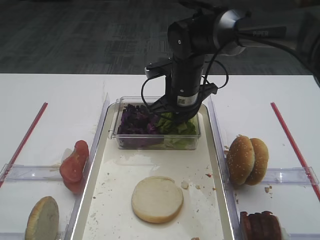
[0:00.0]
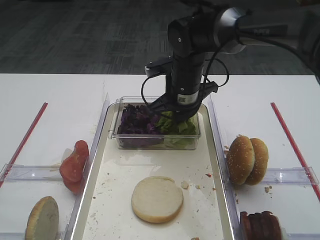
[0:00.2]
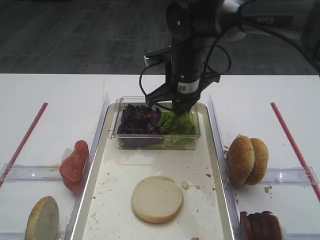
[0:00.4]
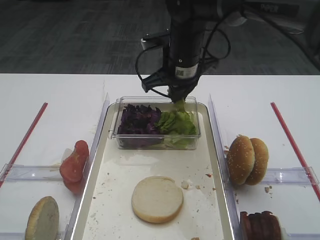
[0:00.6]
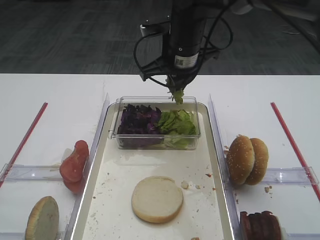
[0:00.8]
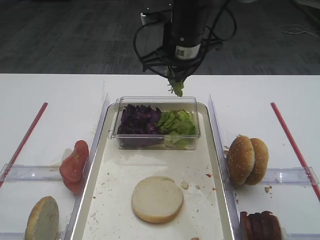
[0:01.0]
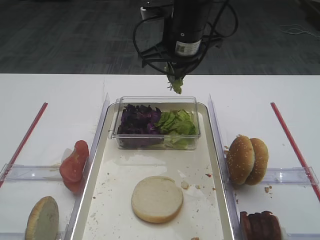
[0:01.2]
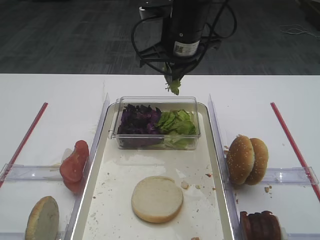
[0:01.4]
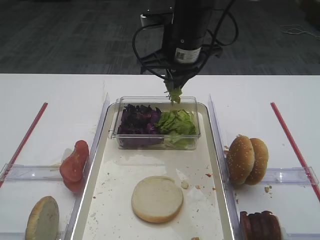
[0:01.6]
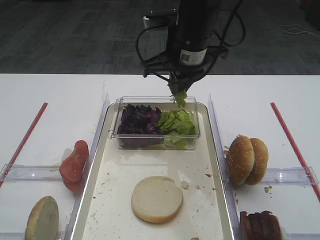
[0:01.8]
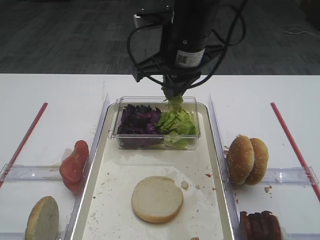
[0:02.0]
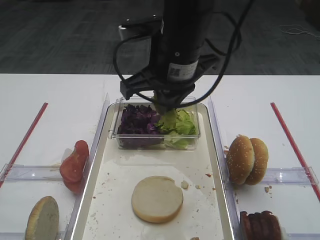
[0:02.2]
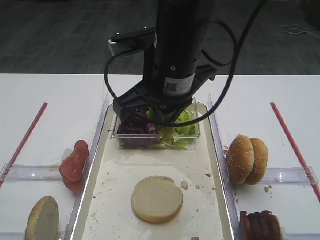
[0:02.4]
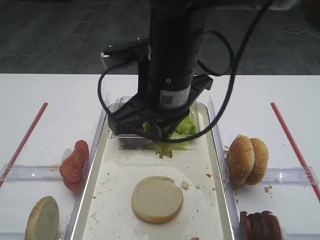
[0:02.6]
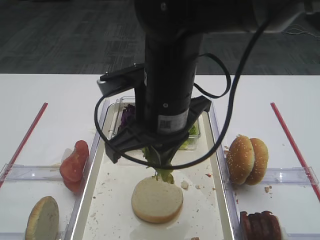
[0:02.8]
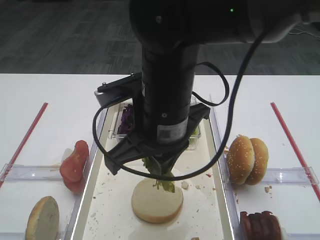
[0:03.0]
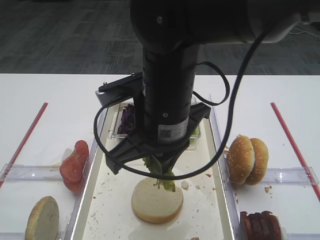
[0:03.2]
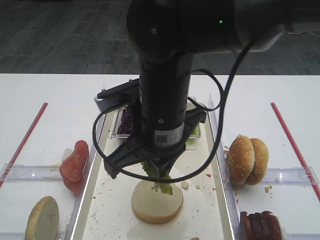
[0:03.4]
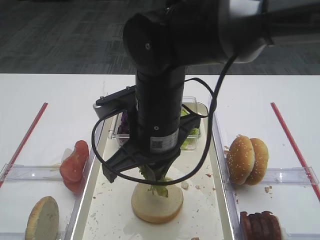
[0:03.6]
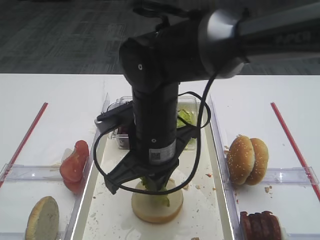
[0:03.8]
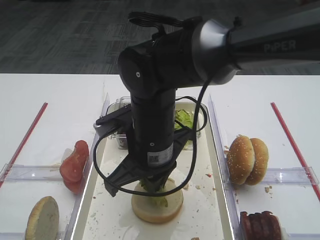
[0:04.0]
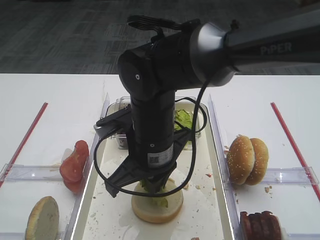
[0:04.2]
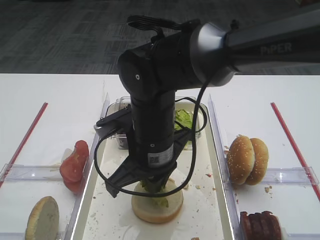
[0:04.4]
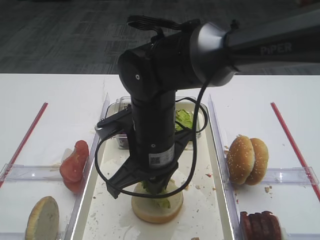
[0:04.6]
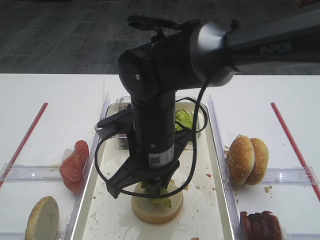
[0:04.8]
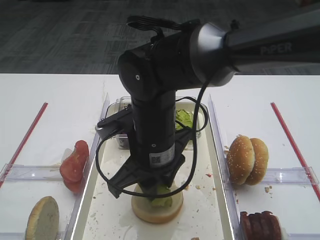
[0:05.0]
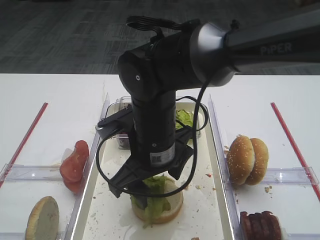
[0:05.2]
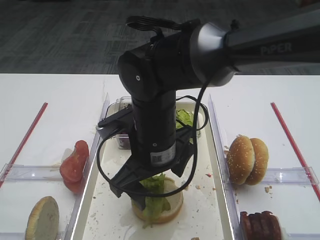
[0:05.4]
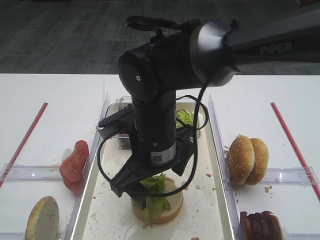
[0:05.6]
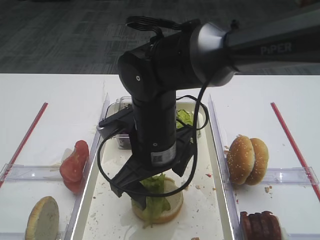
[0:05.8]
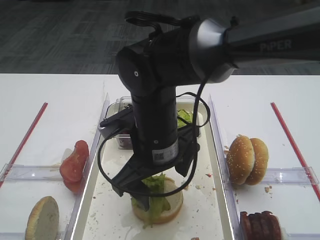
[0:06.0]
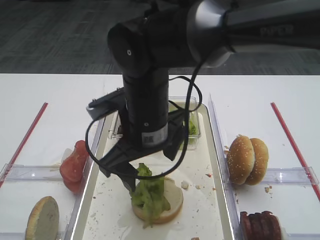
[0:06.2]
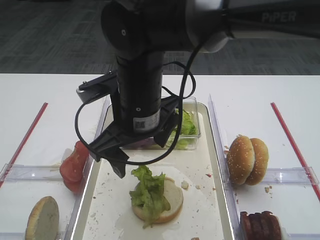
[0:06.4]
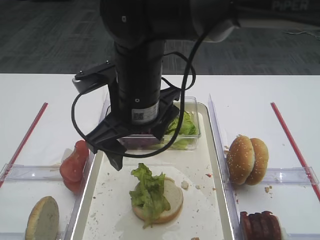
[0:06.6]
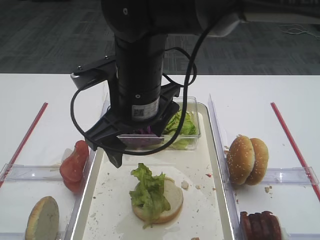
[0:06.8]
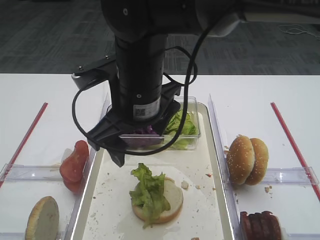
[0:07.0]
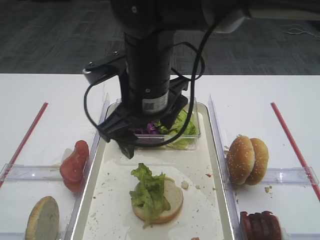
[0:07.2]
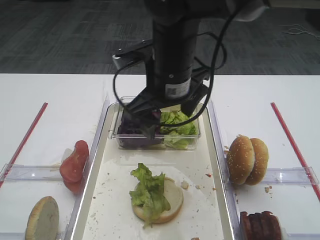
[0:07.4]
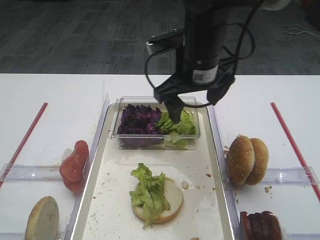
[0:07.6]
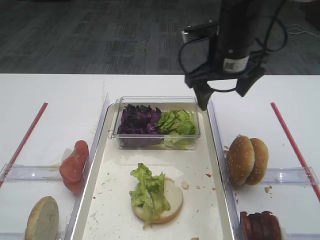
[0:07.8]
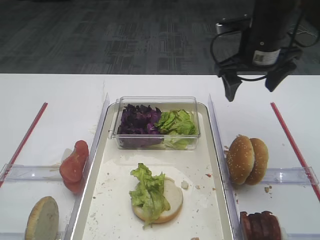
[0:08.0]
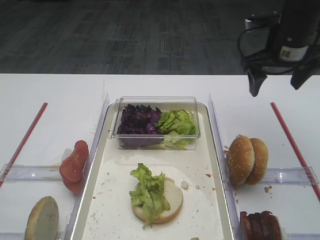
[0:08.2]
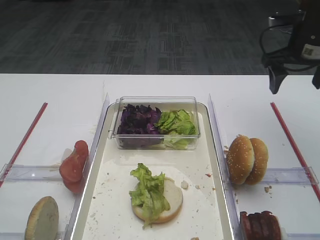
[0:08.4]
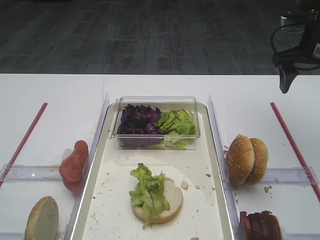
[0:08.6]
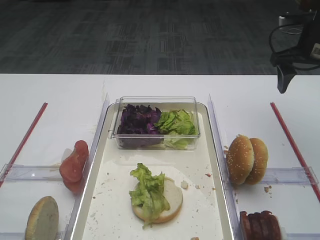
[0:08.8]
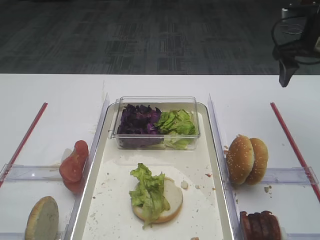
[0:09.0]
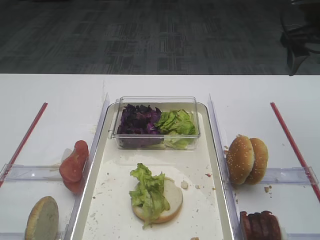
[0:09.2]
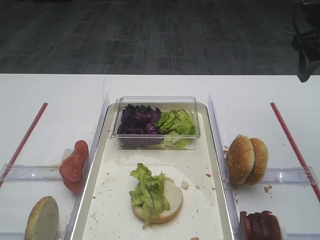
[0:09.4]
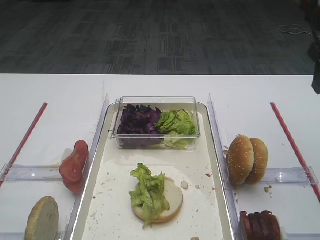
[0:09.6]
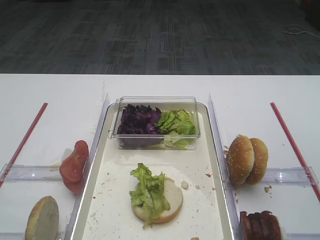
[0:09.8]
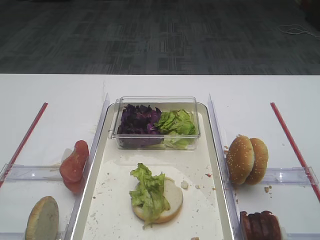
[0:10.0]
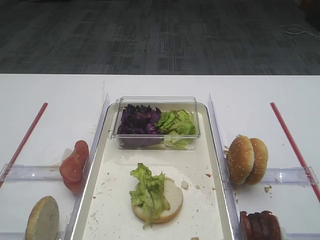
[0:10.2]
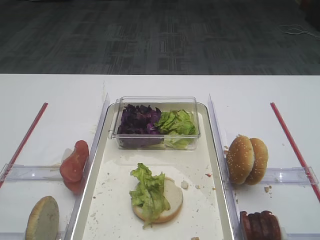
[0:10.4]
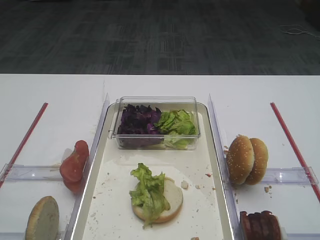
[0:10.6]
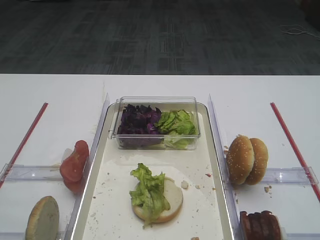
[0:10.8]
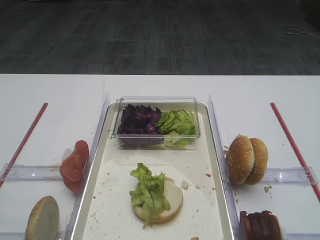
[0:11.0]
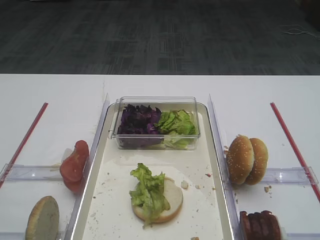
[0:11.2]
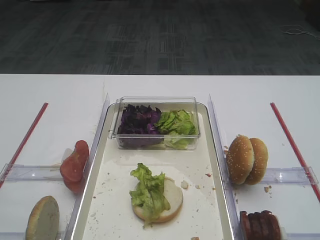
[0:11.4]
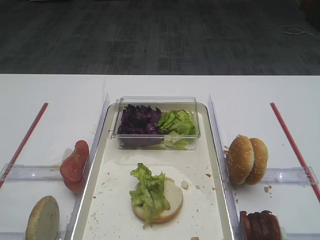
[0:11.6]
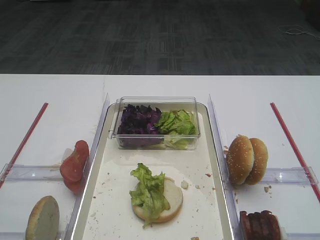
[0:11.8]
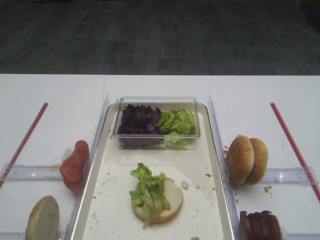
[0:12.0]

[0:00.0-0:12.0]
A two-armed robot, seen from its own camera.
Step, 0:01.6 to 0:06.2: Place the lettuce leaf on the bread slice with the right gripper.
0:00.0 to 0:01.6: The right gripper is displaced upward by approximately 10 cm.
0:01.6 to 0:03.0: The right gripper is displaced backward by approximately 15 cm.
0:03.0 to 0:04.4: The right gripper heads downward, covering about 5 cm.
0:04.4 to 0:06.0: The right gripper opens its fingers.
0:06.0 to 0:07.6: The right gripper is displaced forward, upward and to the right by roughly 10 cm.
0:07.6 to 0:09.0: The right gripper goes about 25 cm to the right.
0:09.0 to 0:10.4: The right gripper shifts about 30 cm backward.

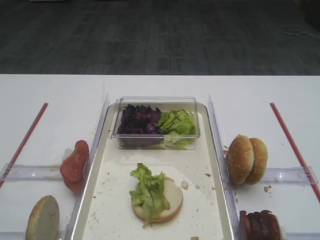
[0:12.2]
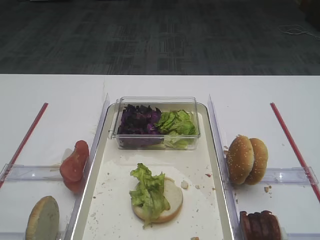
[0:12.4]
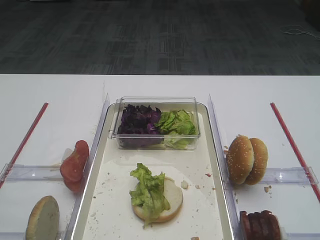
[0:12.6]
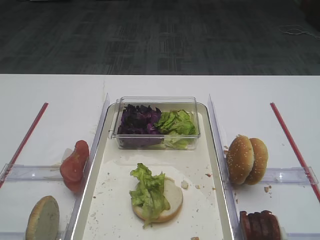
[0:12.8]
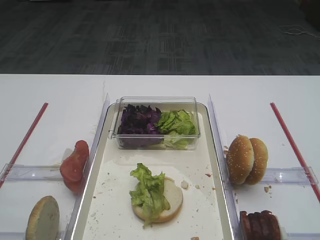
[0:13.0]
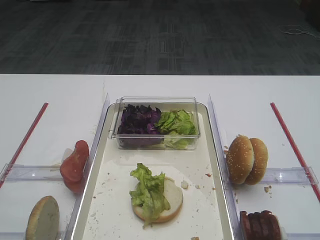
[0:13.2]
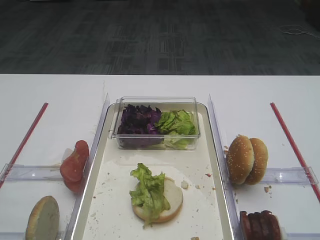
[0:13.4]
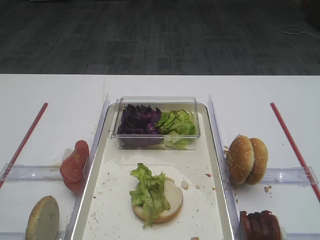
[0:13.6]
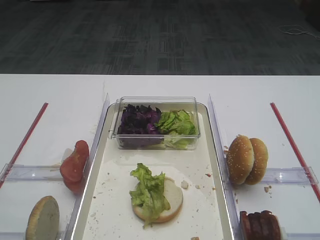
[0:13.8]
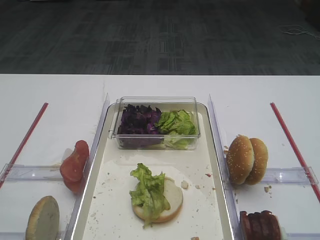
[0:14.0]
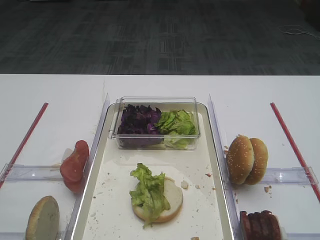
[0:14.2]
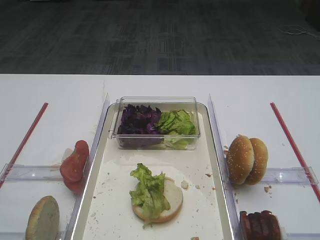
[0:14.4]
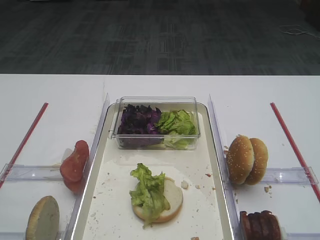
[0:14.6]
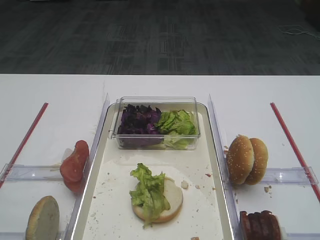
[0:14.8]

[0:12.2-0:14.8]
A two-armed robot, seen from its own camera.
0:12.2 to 0:14.8: Both grippers stay about where they are.

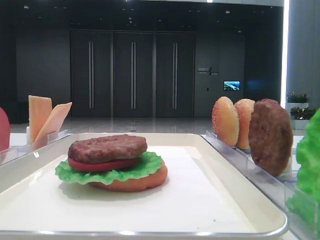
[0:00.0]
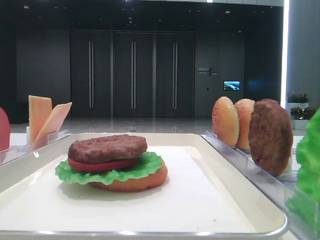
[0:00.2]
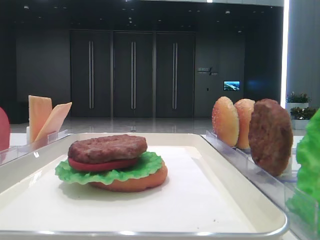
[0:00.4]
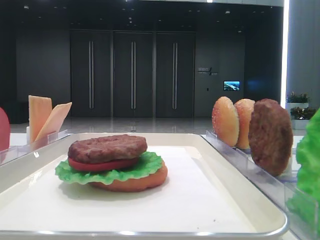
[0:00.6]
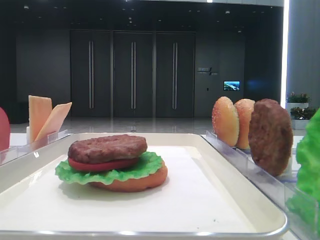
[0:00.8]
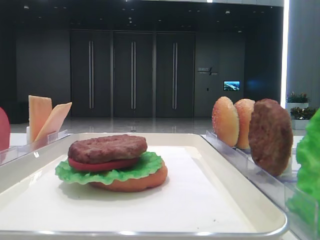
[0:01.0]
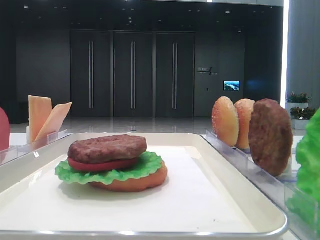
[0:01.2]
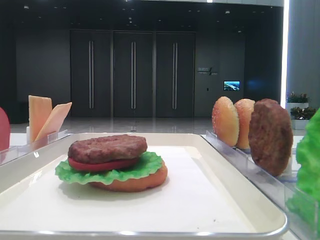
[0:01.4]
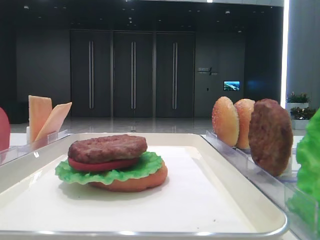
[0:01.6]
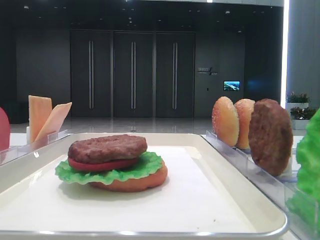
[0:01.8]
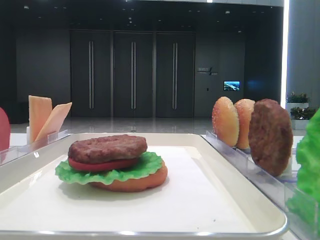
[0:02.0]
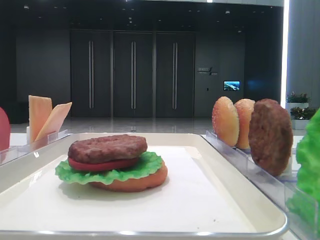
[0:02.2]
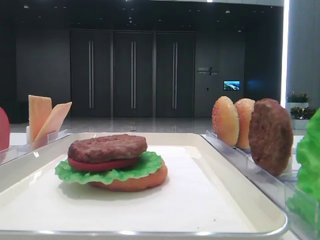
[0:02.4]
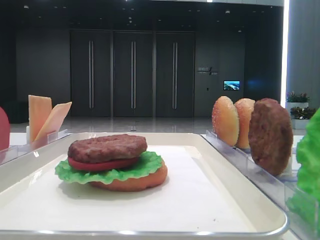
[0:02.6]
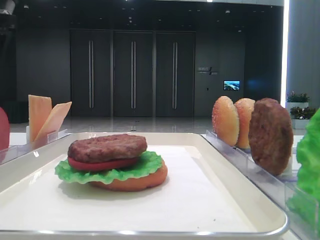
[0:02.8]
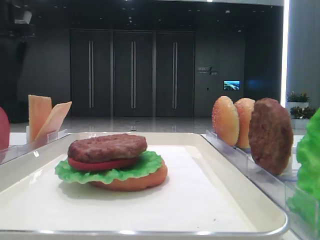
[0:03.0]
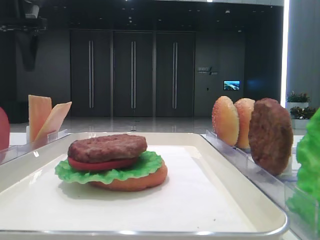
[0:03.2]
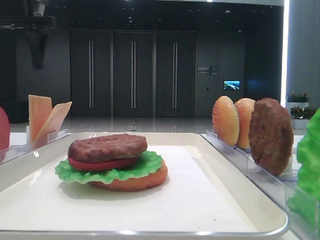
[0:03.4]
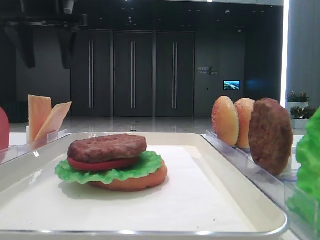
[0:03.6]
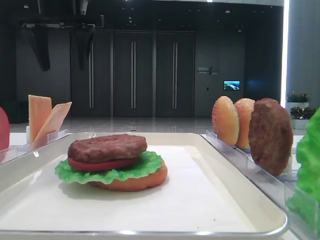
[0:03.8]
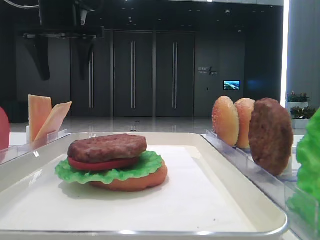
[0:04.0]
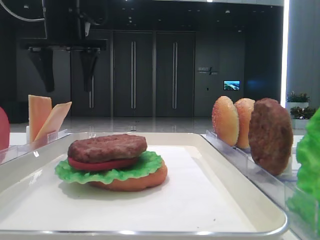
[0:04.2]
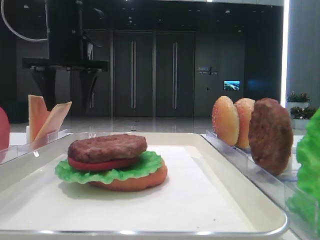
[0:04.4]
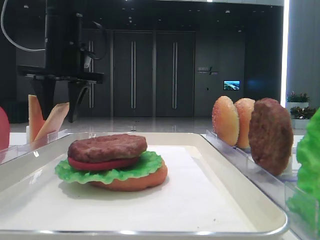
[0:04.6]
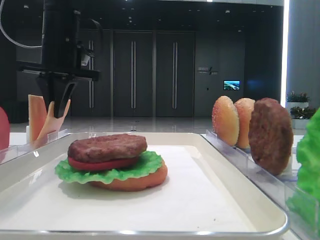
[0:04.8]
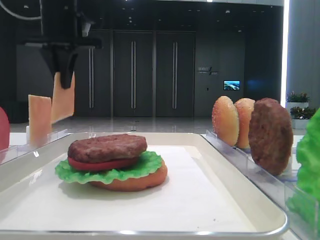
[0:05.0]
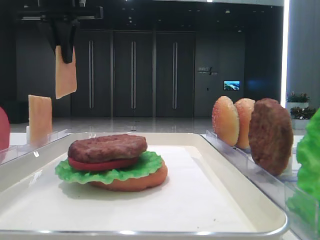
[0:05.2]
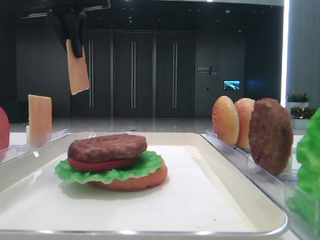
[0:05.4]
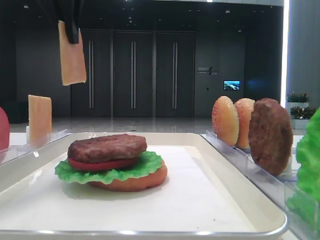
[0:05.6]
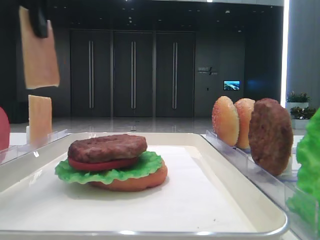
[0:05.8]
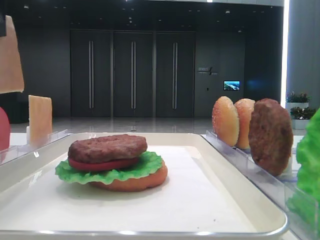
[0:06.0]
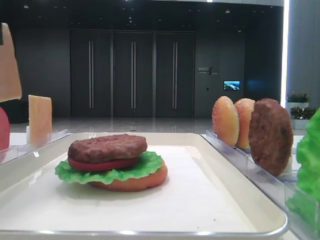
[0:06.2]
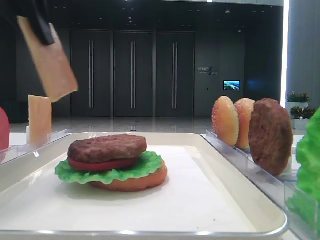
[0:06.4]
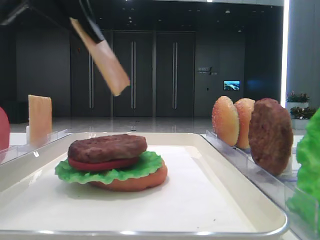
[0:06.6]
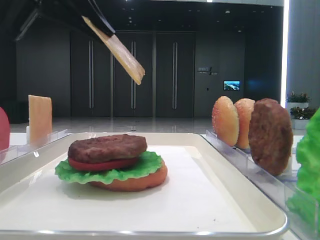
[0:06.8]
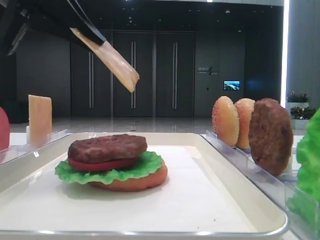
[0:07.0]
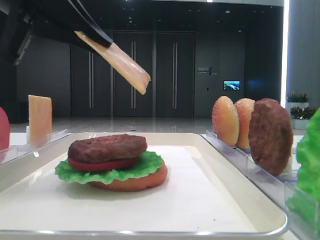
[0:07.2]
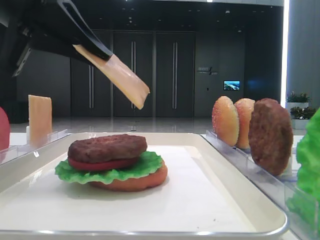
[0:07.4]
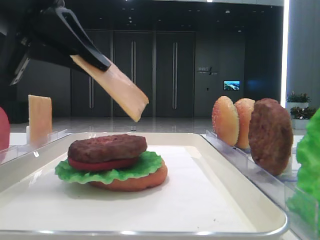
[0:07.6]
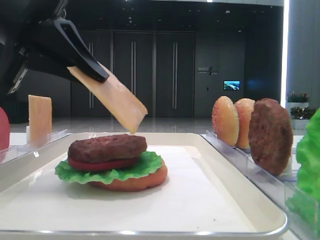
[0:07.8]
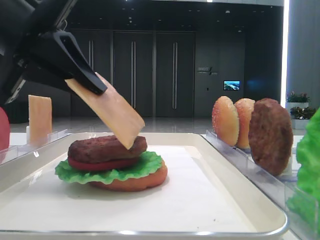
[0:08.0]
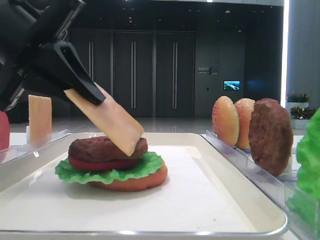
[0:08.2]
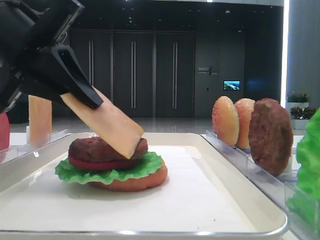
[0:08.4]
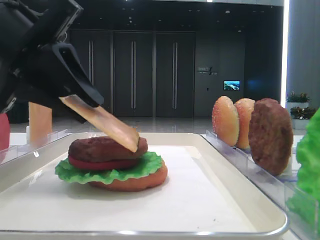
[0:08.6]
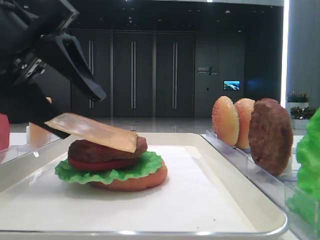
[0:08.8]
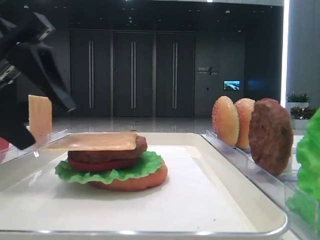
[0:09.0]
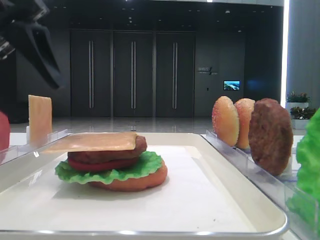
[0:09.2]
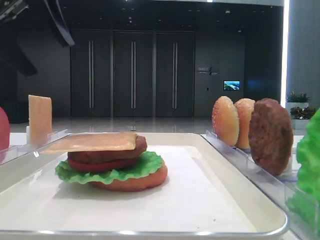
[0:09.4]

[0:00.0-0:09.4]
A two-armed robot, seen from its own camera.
Step, 0:00.0 to 0:04.6: Pick up the cheese slice with the left hand.
Step, 0:04.8 to 0:08.8: Place the cheese slice on the patty with the left hand.
0:01.6 to 0:03.2: The left gripper shifts some 40 cm forward.
0:03.2 to 0:04.8: The left gripper travels to the right and downward by roughly 15 cm, and closes its fingers.
0:04.8 to 0:06.2: The left gripper is displaced backward by roughly 20 cm.
0:06.2 to 0:07.8: The left gripper shifts about 10 cm downward.
0:07.8 to 0:09.4: The left gripper travels upward by about 5 cm, and opens its fingers.
